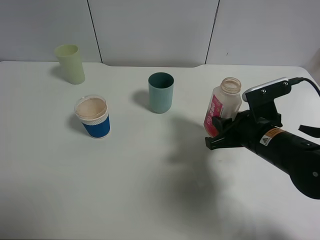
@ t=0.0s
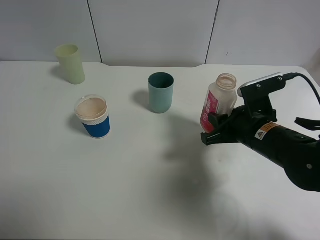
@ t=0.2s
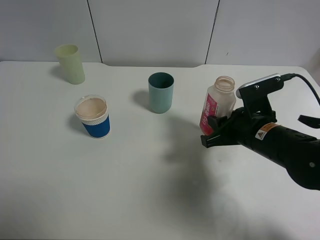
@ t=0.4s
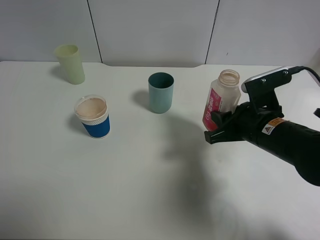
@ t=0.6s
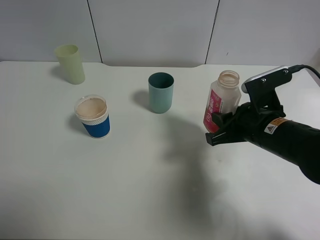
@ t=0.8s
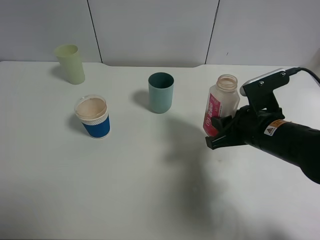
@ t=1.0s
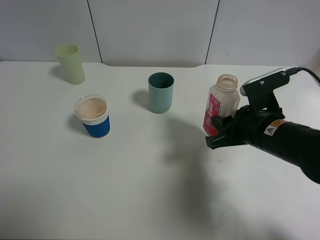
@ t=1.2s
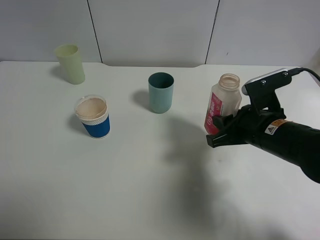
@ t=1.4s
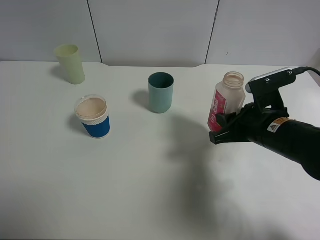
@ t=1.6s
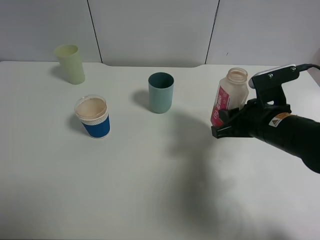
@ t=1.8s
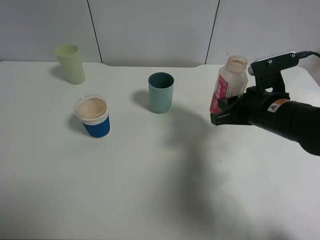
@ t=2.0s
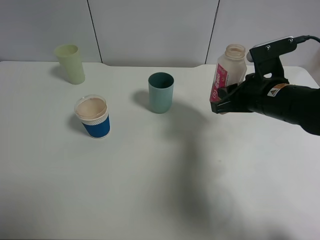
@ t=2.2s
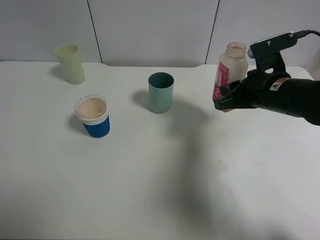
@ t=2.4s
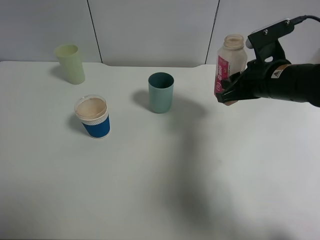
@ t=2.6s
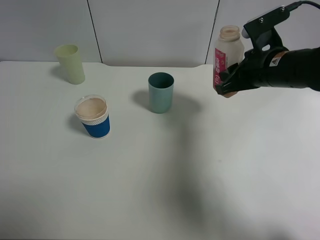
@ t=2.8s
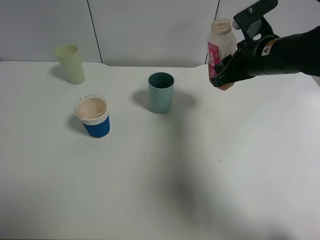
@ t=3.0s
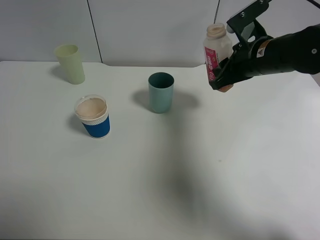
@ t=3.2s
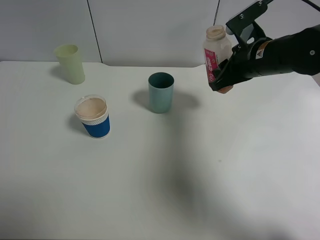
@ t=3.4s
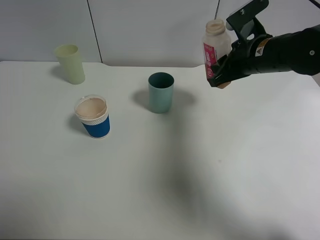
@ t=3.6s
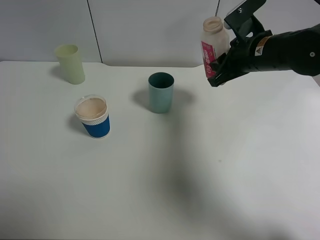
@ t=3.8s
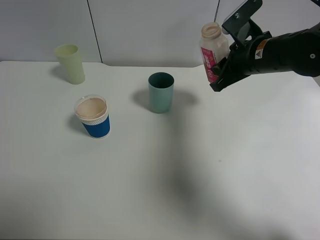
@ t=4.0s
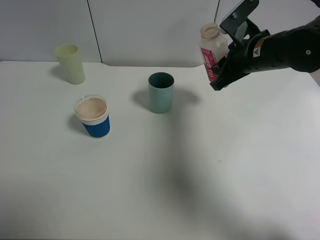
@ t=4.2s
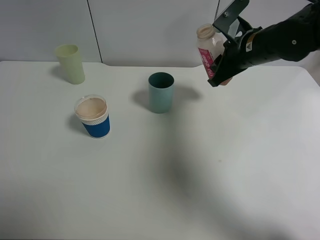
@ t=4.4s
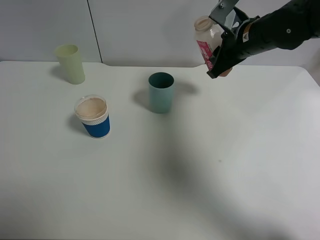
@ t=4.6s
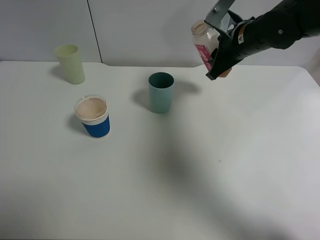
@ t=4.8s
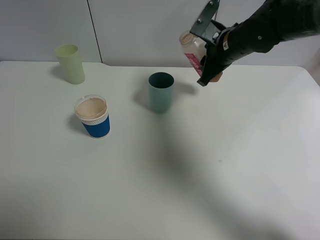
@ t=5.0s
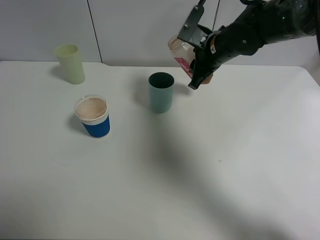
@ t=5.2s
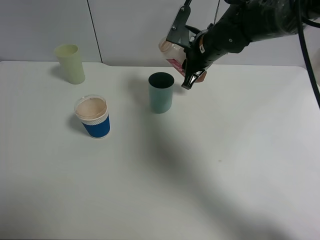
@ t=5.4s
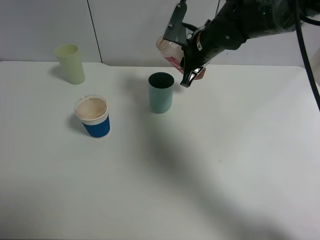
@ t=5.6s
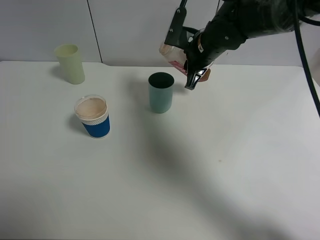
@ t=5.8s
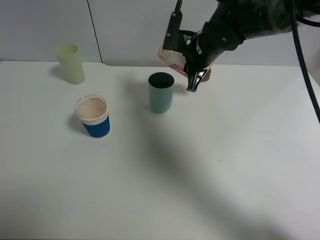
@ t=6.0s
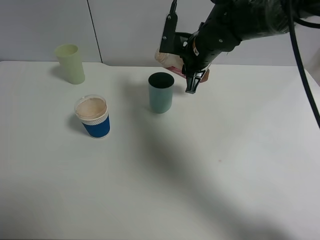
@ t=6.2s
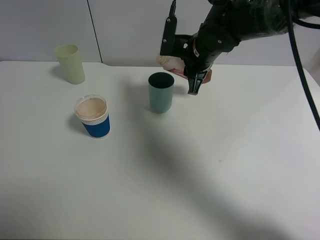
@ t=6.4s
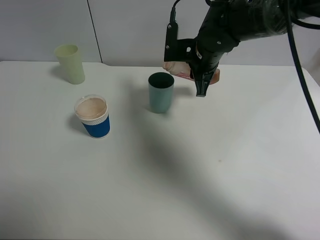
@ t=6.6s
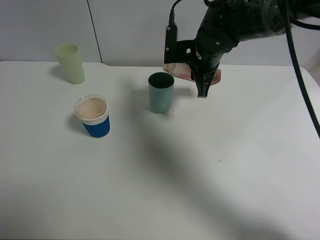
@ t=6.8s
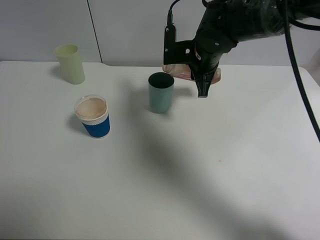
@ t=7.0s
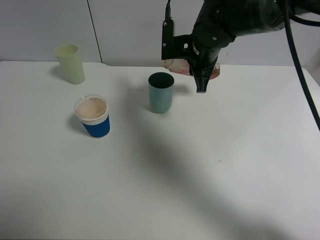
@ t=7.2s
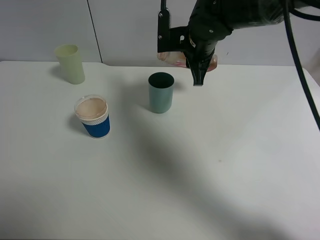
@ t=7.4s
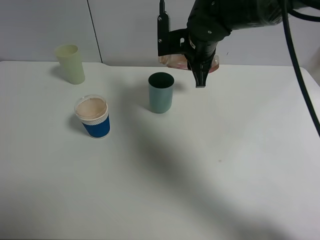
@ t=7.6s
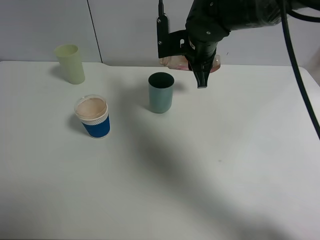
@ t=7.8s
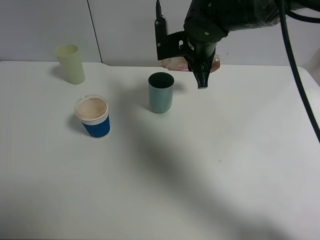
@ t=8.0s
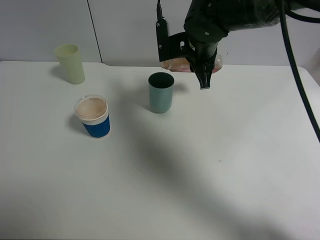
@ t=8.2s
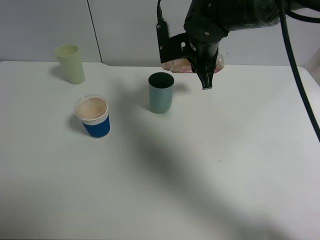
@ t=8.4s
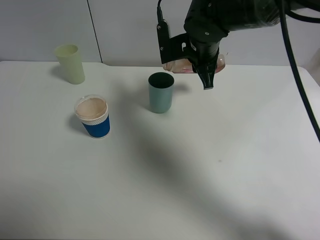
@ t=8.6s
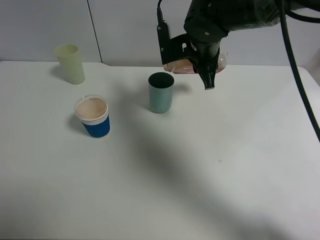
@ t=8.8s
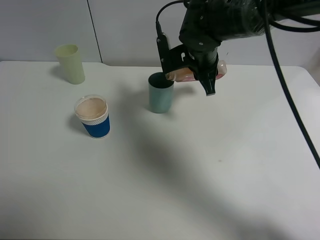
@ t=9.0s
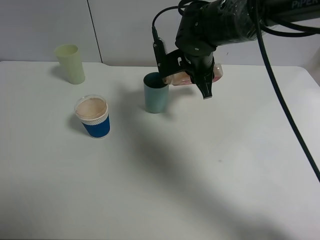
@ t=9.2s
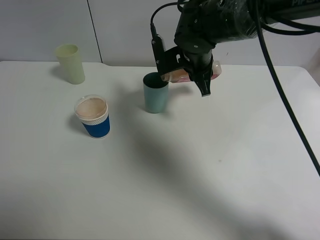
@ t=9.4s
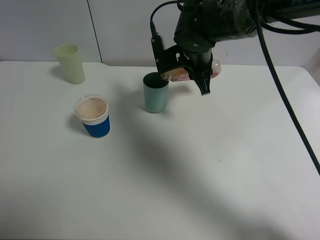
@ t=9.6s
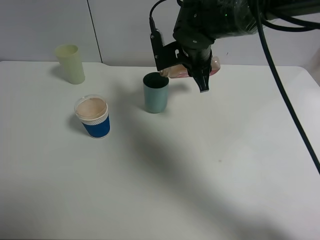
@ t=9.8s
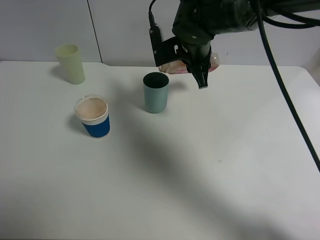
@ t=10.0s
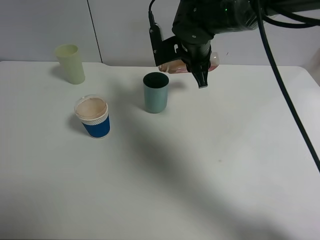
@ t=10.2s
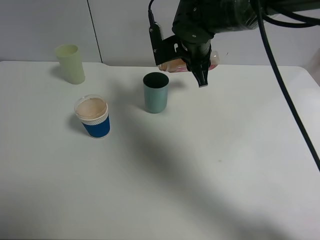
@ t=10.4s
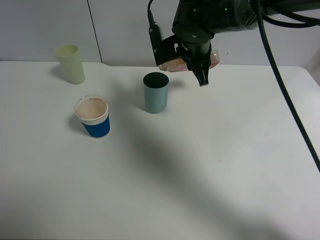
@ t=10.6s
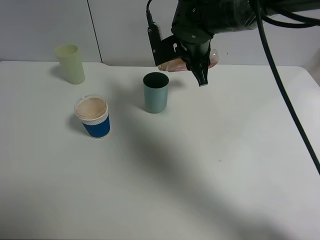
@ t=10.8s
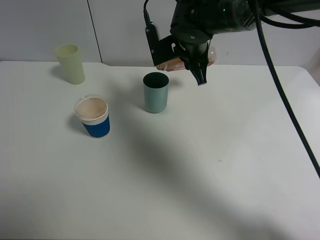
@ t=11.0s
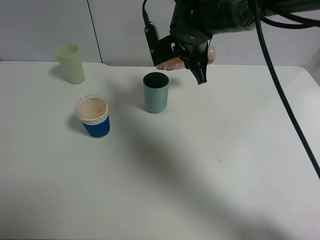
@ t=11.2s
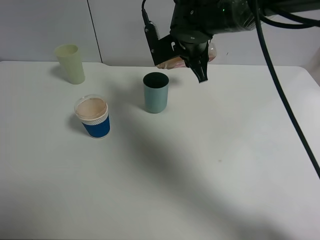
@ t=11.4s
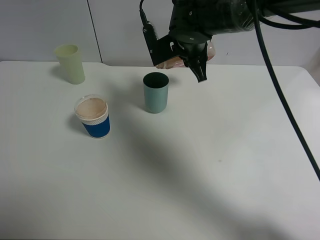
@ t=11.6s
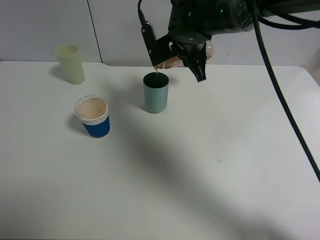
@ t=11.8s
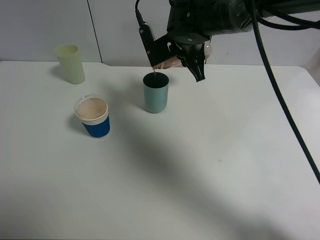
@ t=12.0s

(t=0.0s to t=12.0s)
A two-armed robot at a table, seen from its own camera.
Task of the whole recording: use a clamp to hold the bottle of the drink, pour the beverage into a random cup, then clamp the cup containing the drink and pour the drink into another random cup.
t=0.0s - t=1.6s: There are only small adjustments of the grippers.
t=1.6s - t=3.0s: The right gripper shifts some 15 cm forward and upward.
t=3.0s - t=4.4s: There are only small adjustments of the grippers.
t=4.4s - t=6.0s: The right gripper shifts approximately 10 cm to the left.
t=6.0s - t=7.6s: The grippers stay close to where they were, moving slightly.
t=7.6s - t=12.0s: The grippers stay close to where they were, moving slightly.

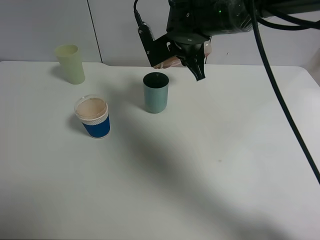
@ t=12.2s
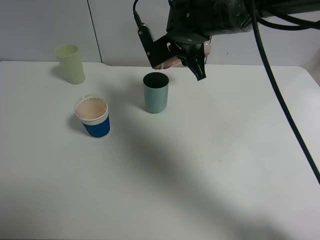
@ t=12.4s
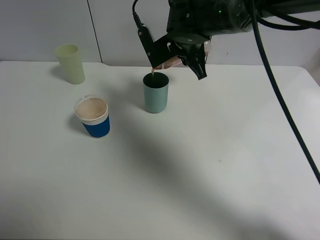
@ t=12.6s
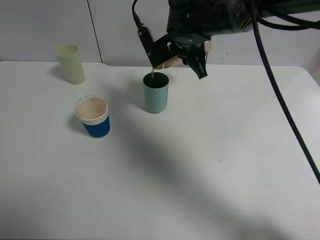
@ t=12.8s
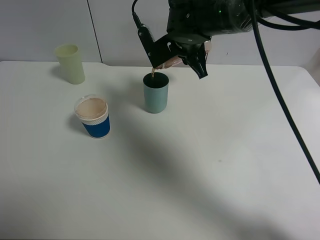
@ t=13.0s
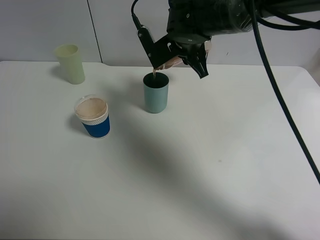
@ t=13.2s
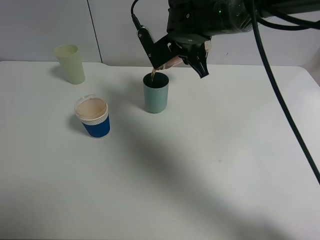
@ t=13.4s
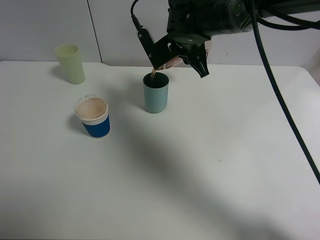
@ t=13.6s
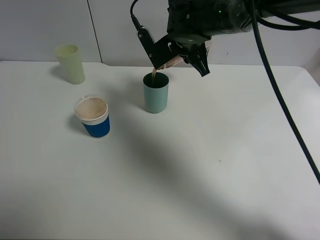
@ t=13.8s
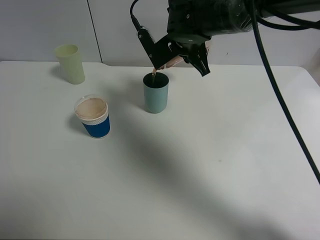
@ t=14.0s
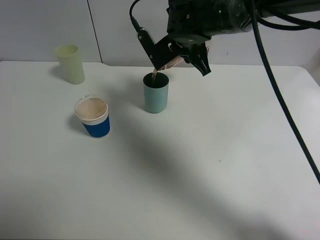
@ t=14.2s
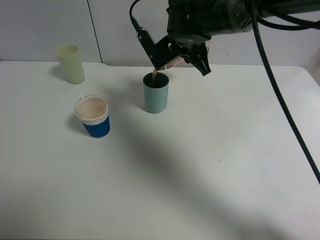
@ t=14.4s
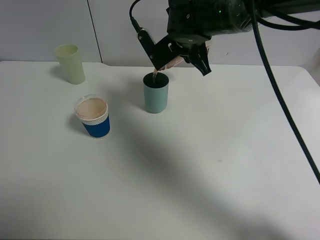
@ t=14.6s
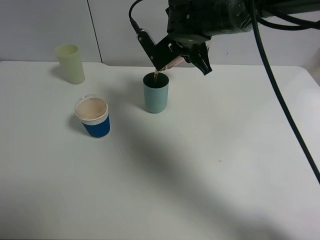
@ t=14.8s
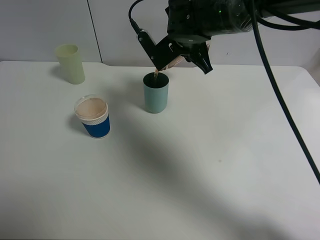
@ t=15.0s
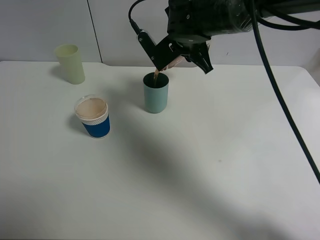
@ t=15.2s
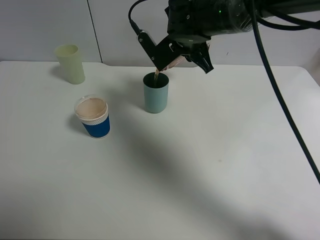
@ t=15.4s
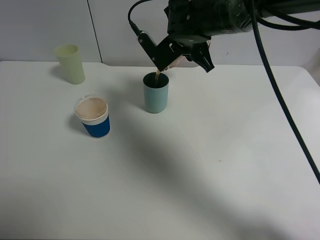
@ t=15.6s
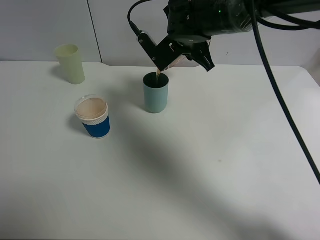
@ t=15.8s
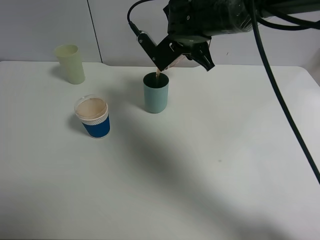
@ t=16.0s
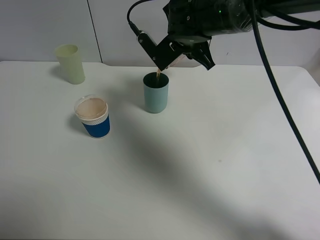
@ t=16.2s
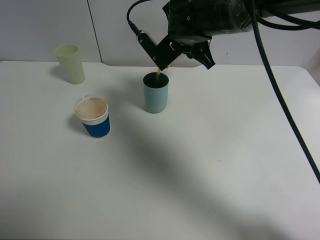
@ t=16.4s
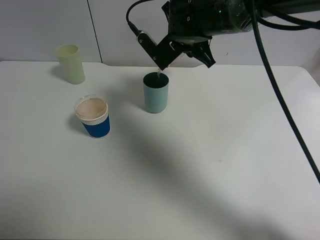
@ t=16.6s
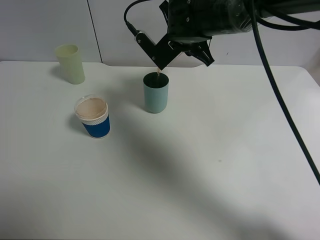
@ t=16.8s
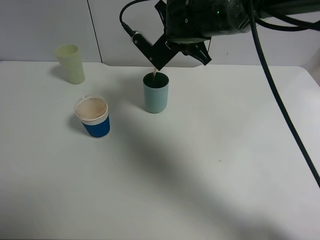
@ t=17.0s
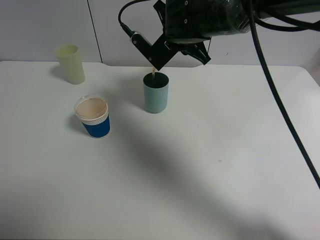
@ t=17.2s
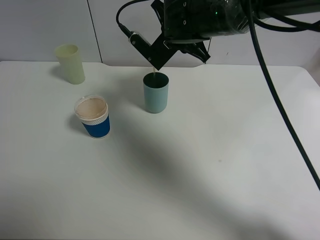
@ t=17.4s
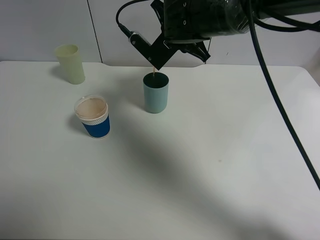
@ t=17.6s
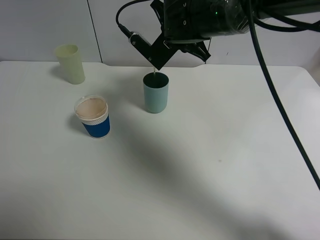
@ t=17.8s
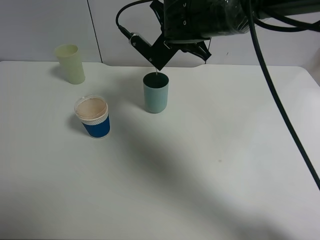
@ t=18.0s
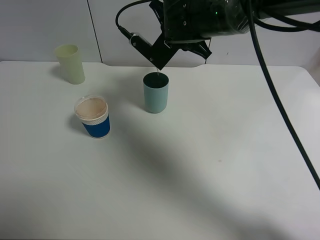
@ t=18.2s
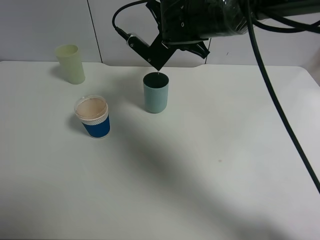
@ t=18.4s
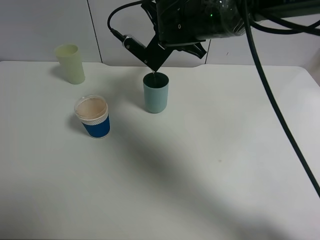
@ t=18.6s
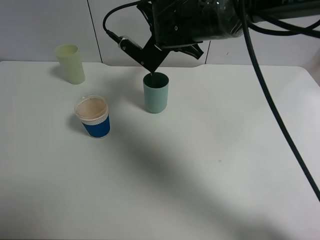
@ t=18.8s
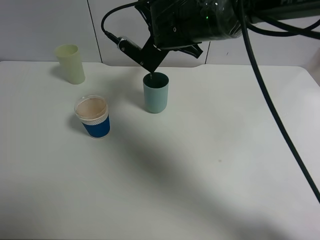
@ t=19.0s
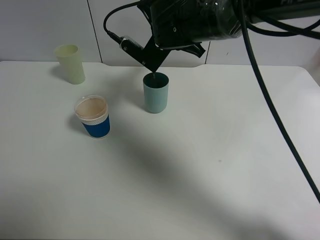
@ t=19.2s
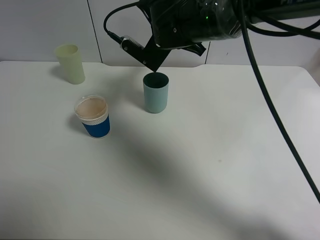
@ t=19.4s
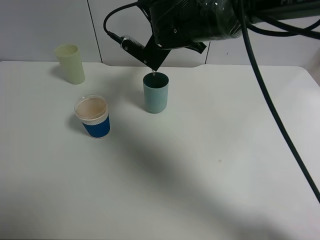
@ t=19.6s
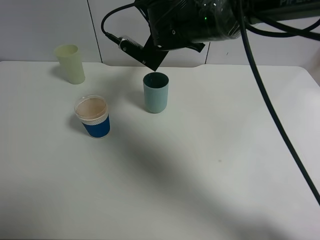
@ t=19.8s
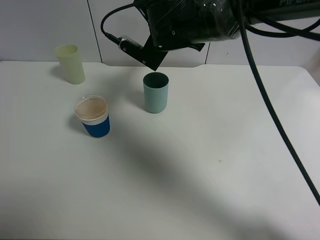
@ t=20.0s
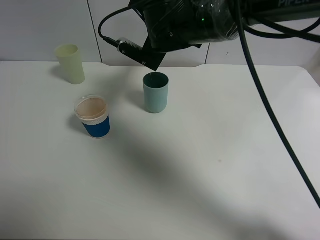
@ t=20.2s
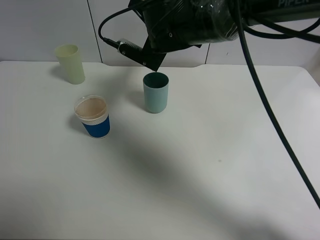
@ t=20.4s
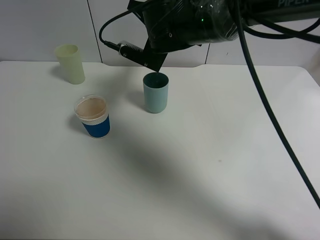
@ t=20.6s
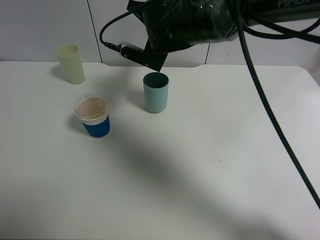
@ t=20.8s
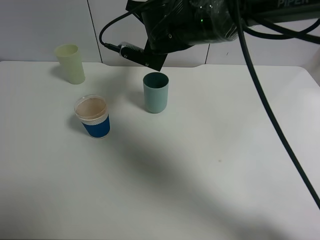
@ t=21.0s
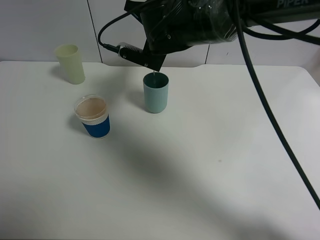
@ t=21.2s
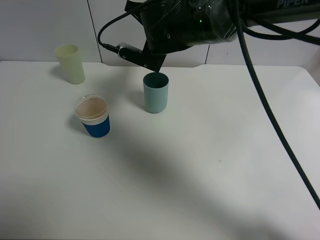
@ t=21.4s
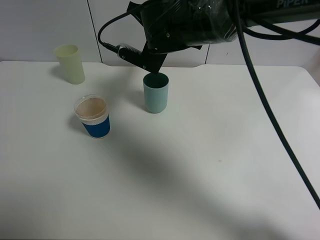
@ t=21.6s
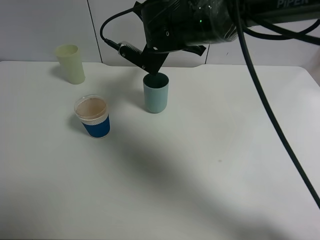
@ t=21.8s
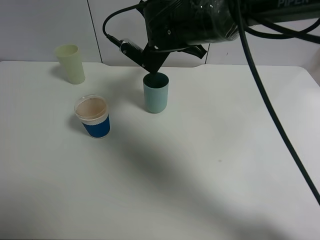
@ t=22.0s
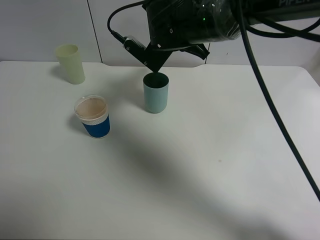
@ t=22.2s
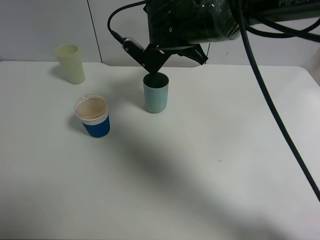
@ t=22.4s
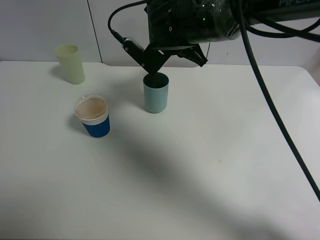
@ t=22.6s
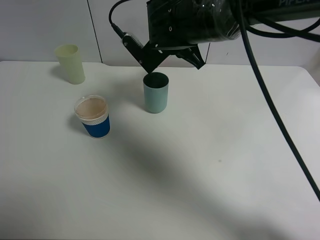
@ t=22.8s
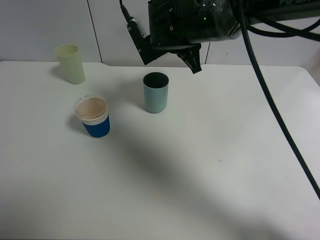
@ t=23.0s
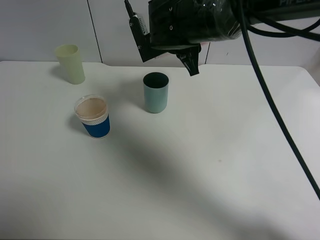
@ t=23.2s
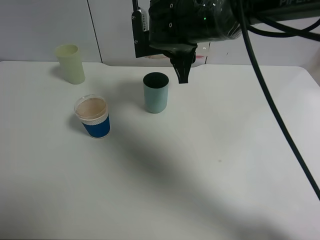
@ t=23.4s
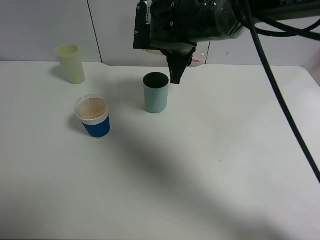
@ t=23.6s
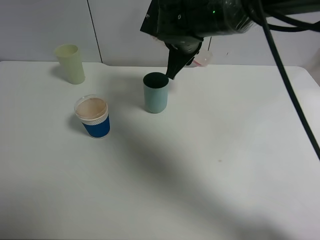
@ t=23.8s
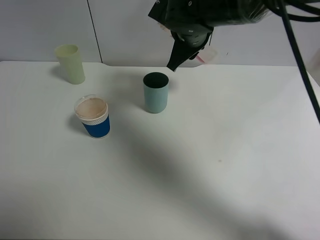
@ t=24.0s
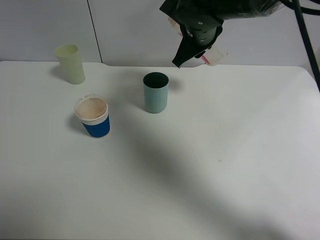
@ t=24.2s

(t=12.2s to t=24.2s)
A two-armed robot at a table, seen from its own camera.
Task of the whole recording: use a clamp to hold the bottle of the drink, pour the beverage into a random cup, then clamp the cup containing the drink and pour the drink into another random cup.
Step, t=12.2s - t=22.0s: Pour the drink into the blue plastic cup with right gripper.
t=12.2s - t=16.6s: The grippers make only small movements.
t=16.6s - t=18.2s: The grippers stay close to where they were, moving slightly.
t=18.2s - t=19.8s: The grippers move only a little.
t=19.8s - t=21.2s: The grippers stay close to where they were, moving slightly.
